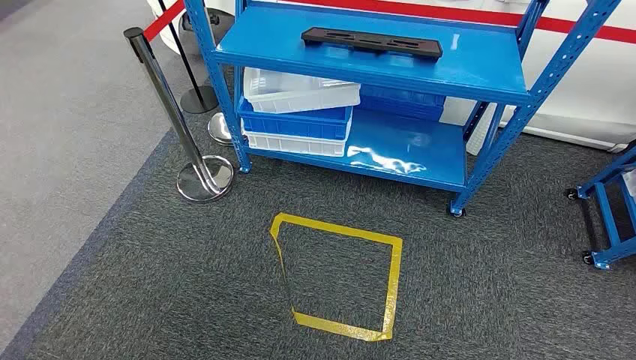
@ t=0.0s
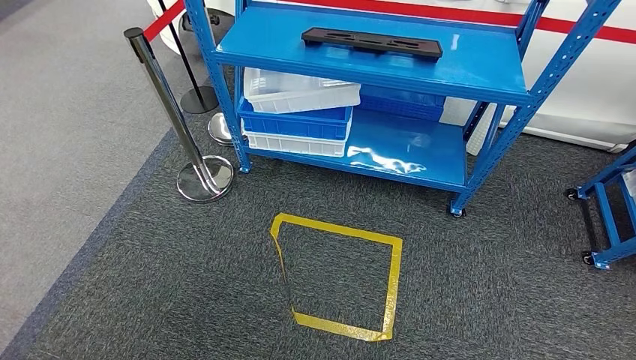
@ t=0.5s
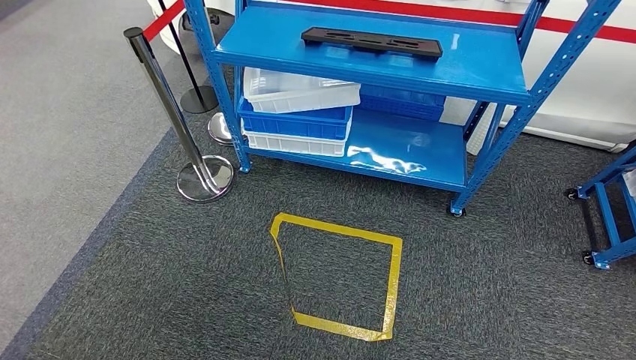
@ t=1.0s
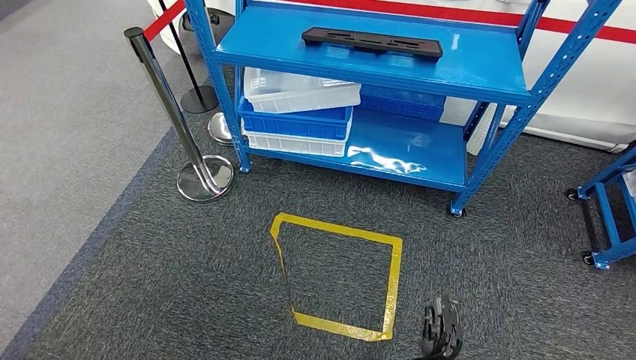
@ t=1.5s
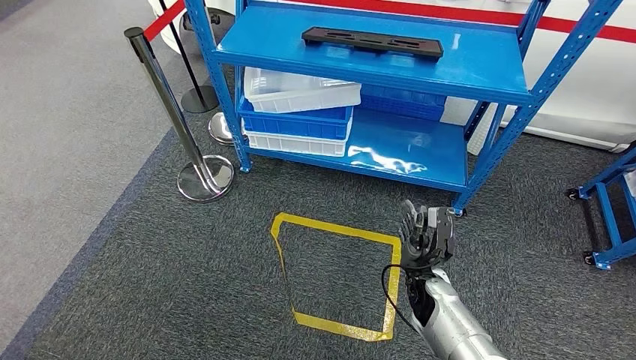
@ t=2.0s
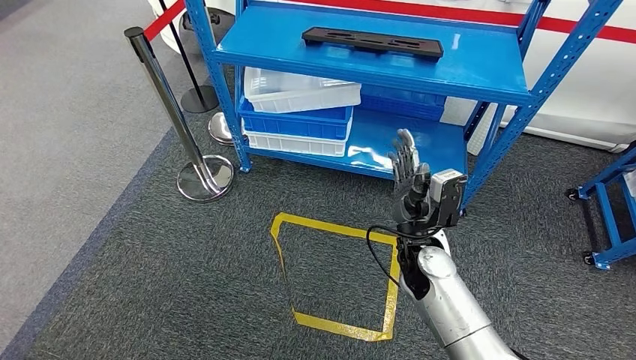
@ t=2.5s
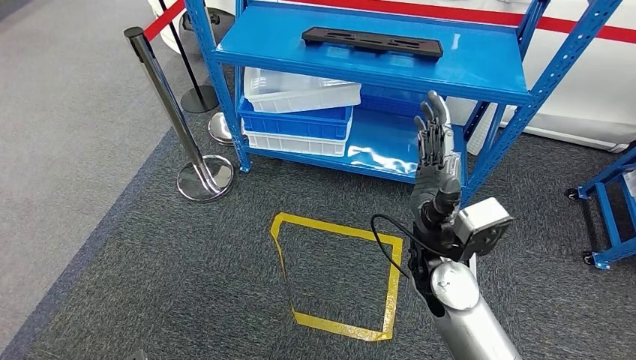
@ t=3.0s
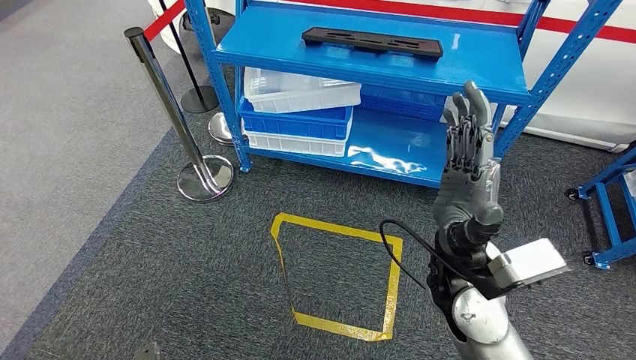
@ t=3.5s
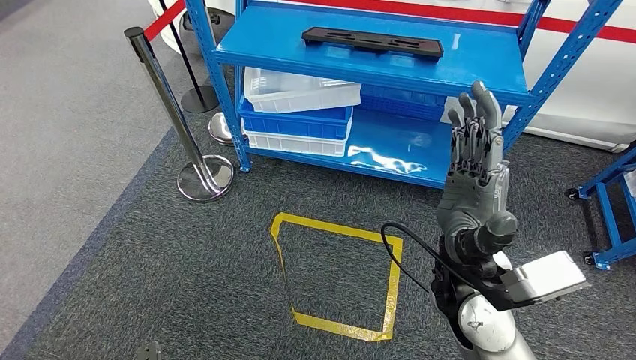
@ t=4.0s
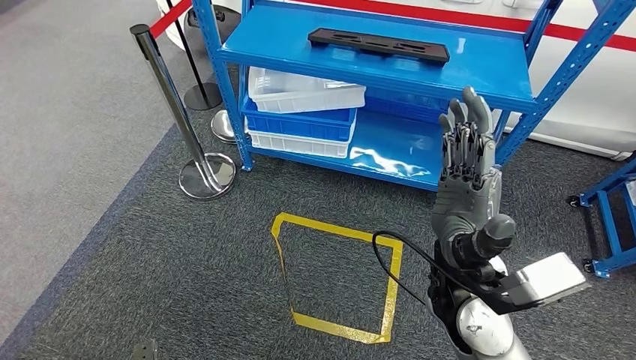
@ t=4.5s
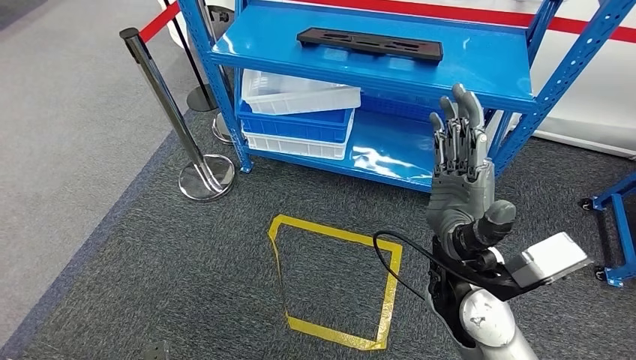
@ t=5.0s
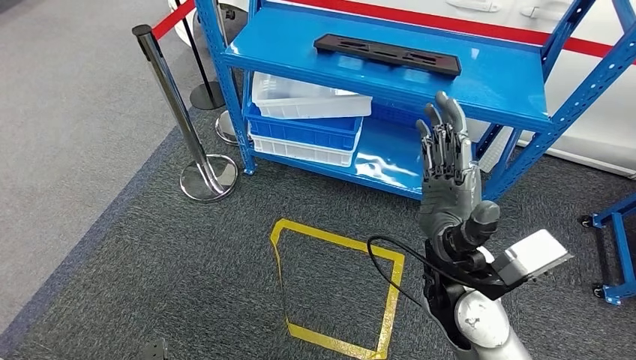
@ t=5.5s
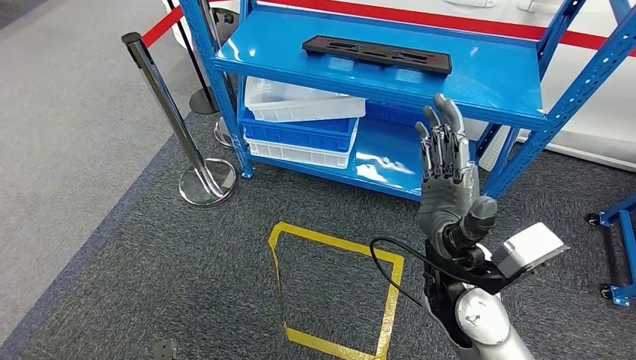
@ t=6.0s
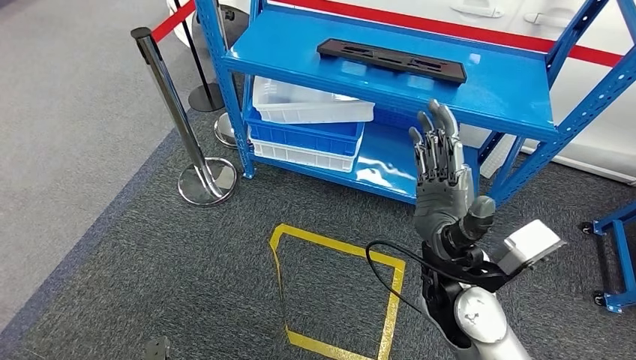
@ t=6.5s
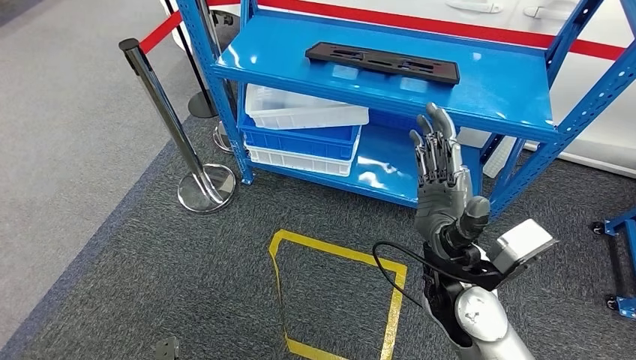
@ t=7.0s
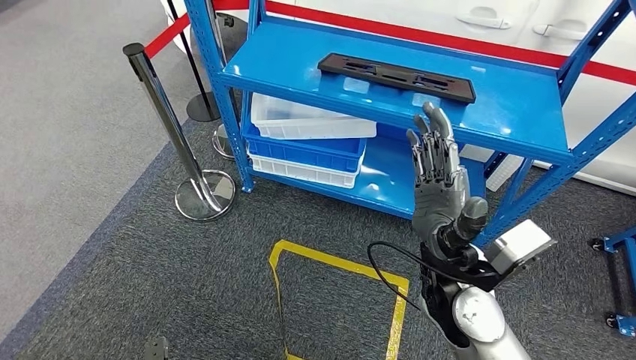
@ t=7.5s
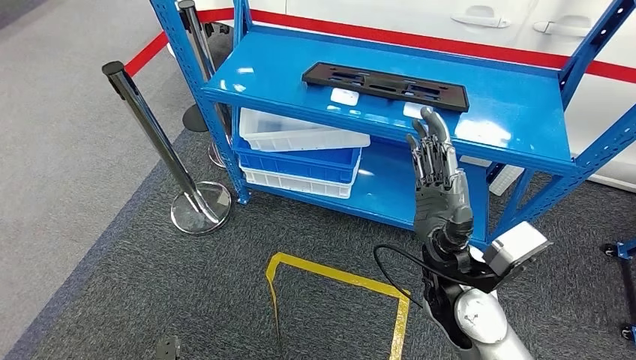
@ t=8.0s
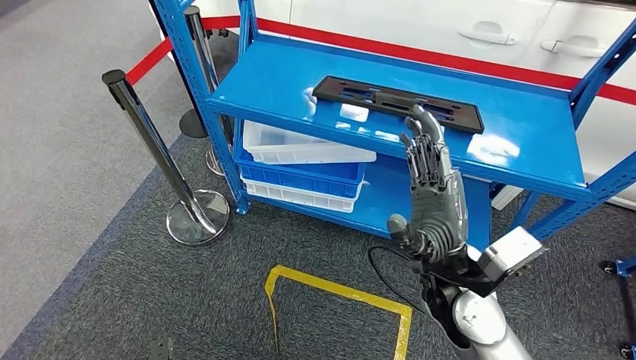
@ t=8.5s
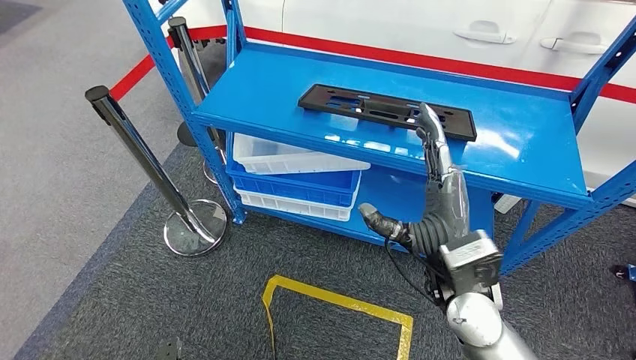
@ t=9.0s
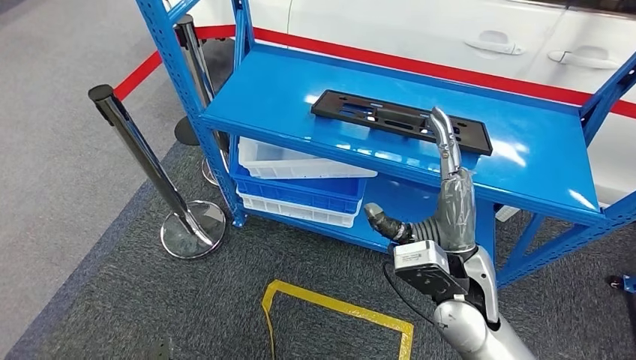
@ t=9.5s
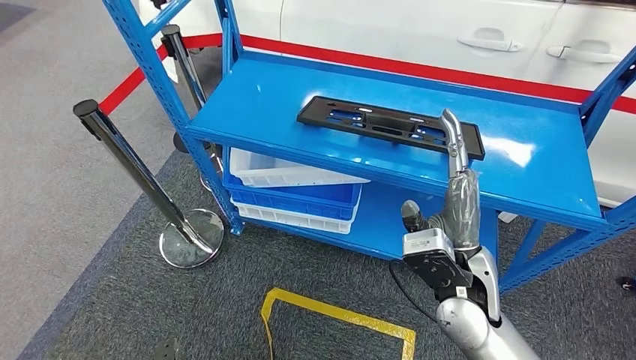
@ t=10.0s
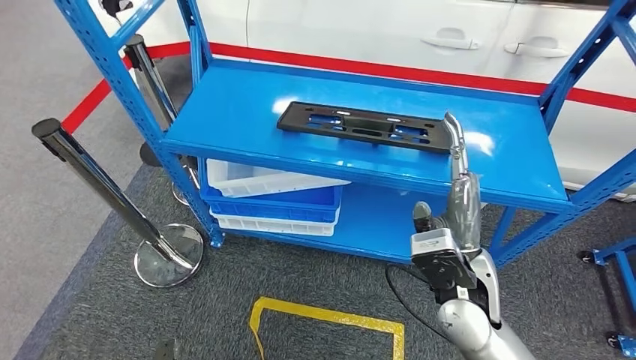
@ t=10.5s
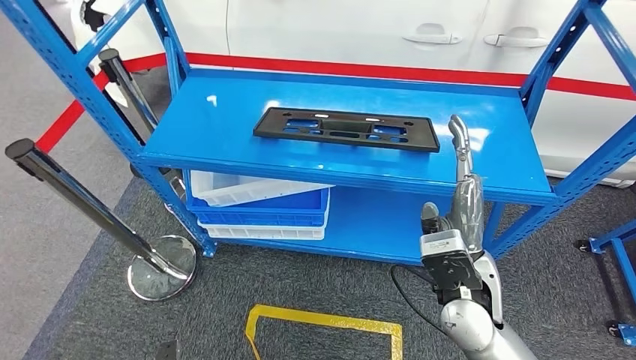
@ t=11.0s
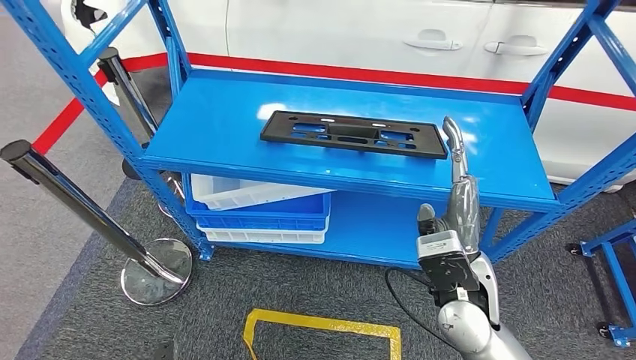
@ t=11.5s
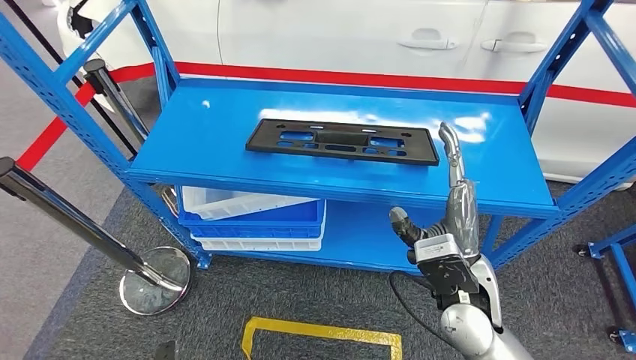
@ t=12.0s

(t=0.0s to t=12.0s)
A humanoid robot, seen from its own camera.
t=2.0s - t=4.0s: The right hand goes roughly 25 cm upward.

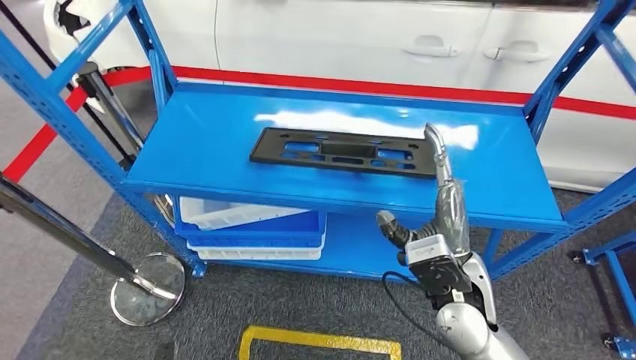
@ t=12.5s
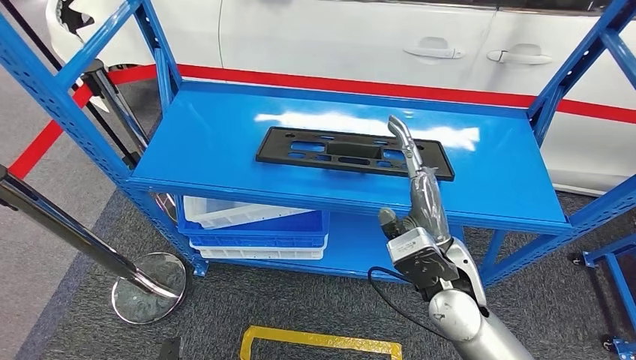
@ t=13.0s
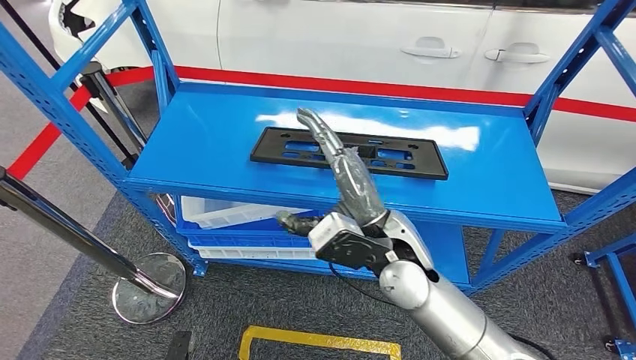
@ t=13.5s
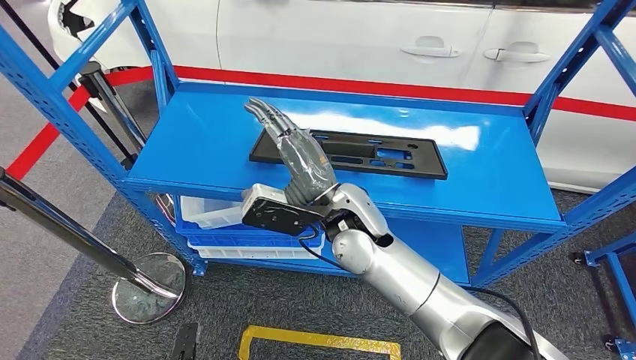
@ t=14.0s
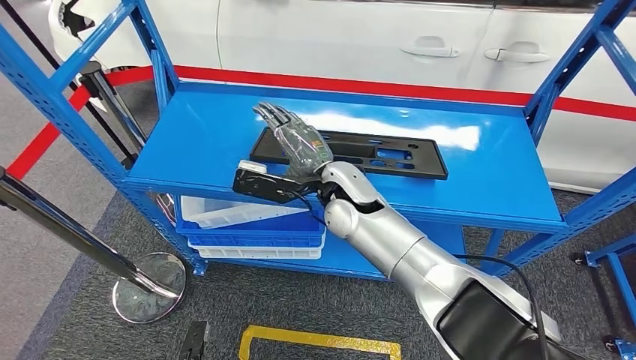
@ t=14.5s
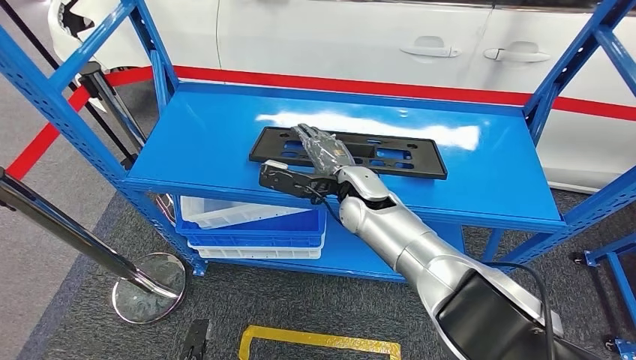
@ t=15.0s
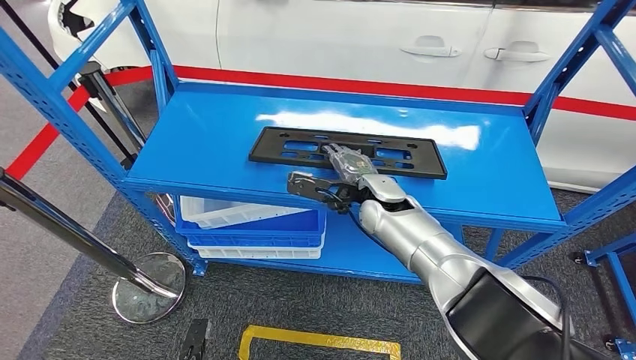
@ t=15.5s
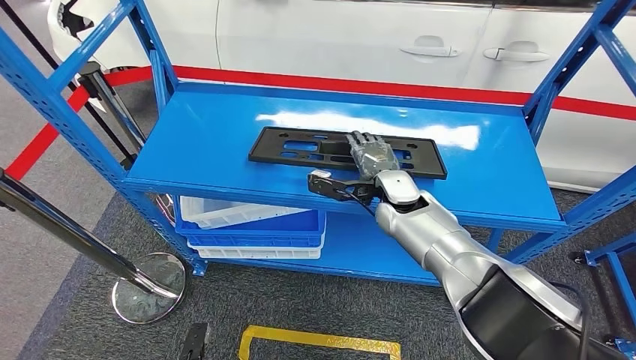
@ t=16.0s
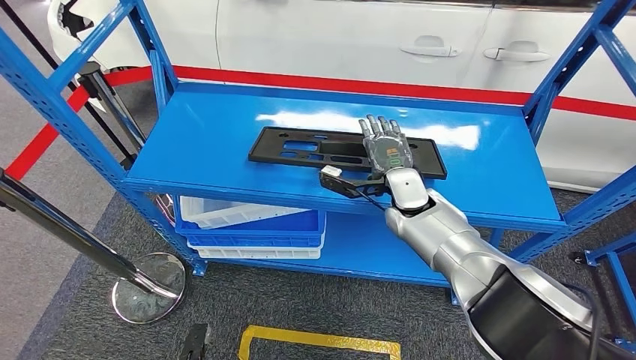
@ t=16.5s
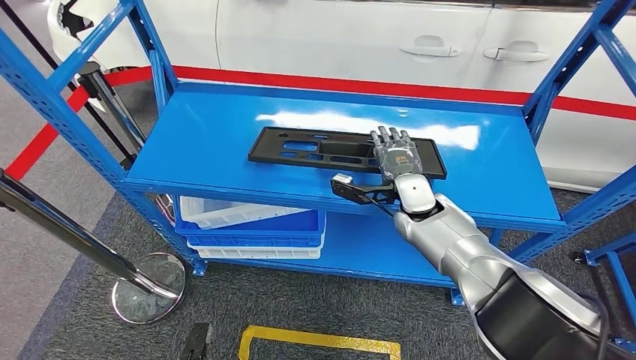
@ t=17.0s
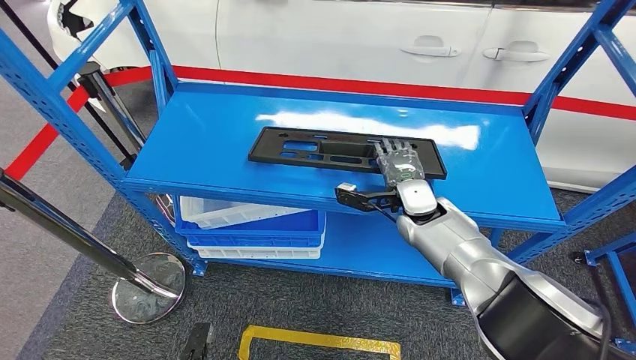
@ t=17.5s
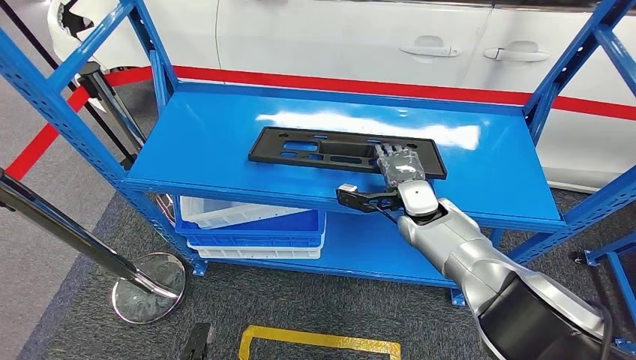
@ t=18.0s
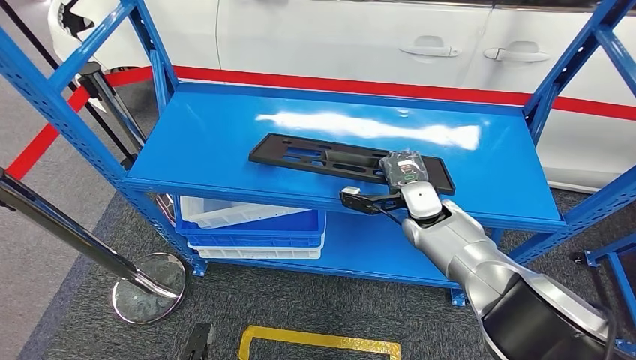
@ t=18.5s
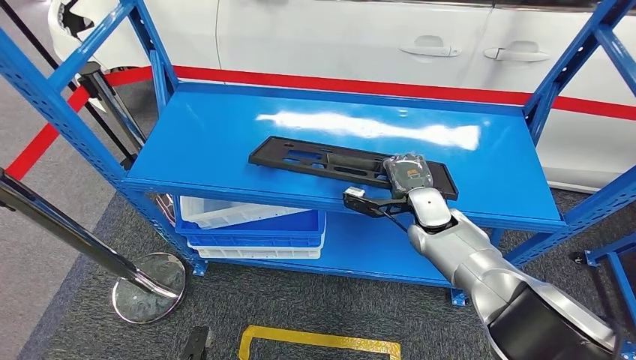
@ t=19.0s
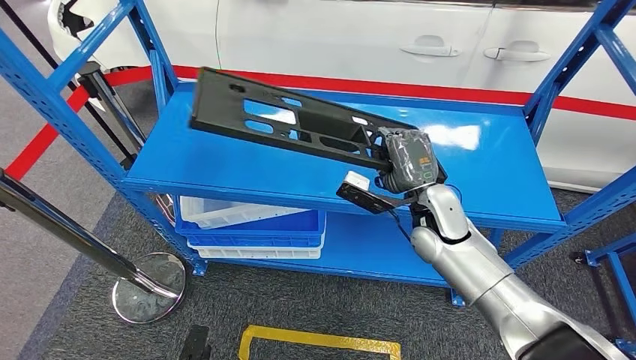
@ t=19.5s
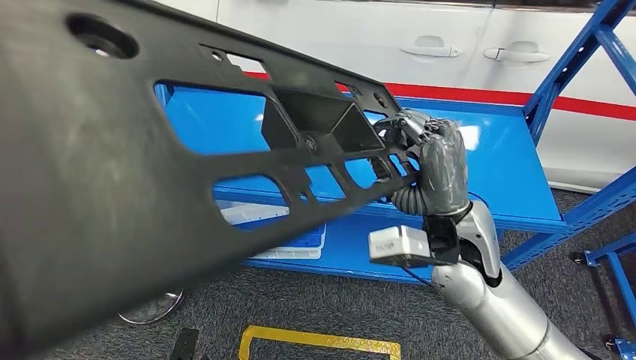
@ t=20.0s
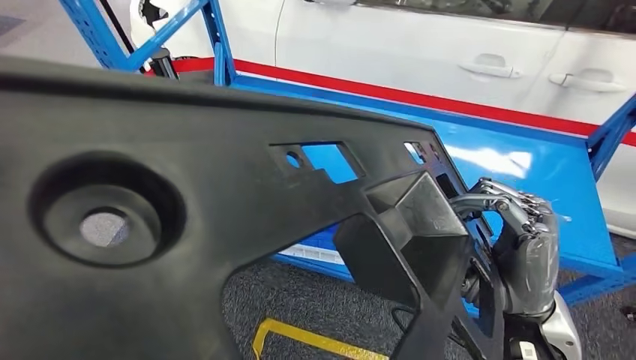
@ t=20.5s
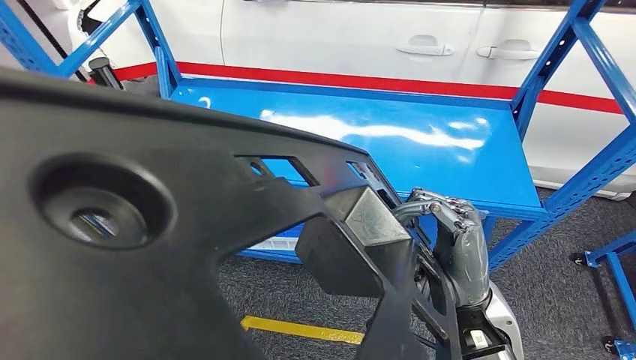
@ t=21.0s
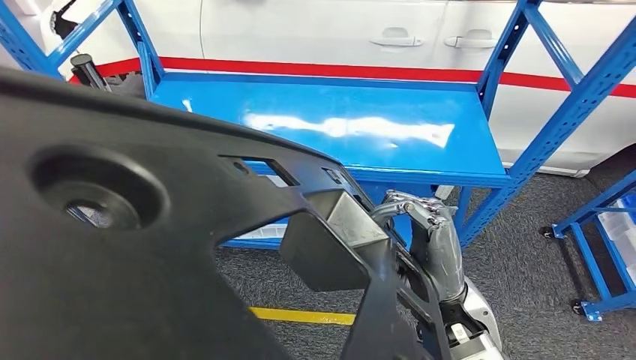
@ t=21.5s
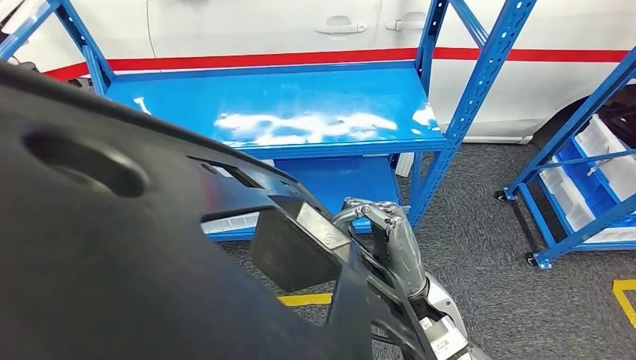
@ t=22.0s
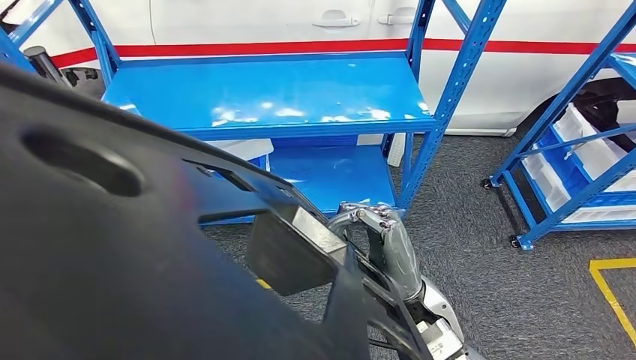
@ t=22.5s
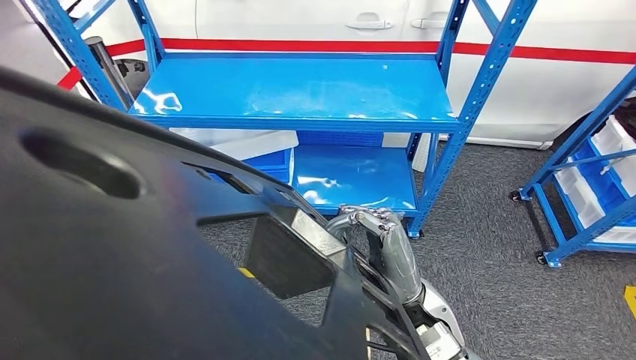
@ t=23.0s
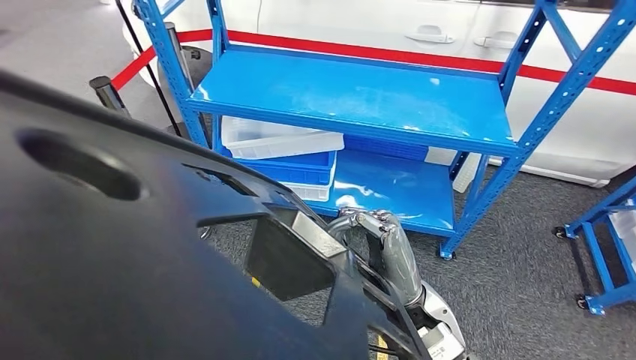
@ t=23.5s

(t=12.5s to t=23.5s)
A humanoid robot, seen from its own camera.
Step, t=12.5s - t=20.0s: Pick up the large material from the shelf.
t=12.5s - t=14.5s: The right hand travels to the left and forward by about 20 cm, while the left hand moves about 5 cm.
t=14.5s - t=16.0s: The right hand moves to the right and downward, roughly 10 cm.
t=16.0s - t=18.0s: The right hand moves approximately 5 cm.
